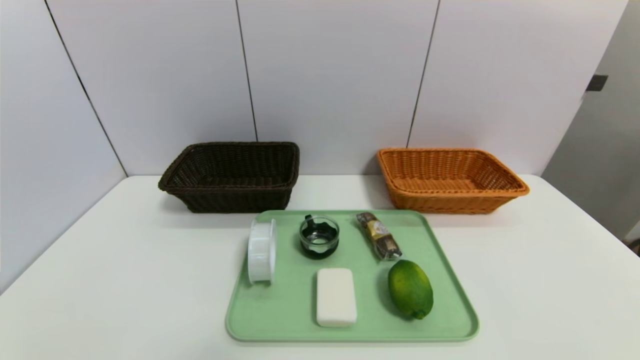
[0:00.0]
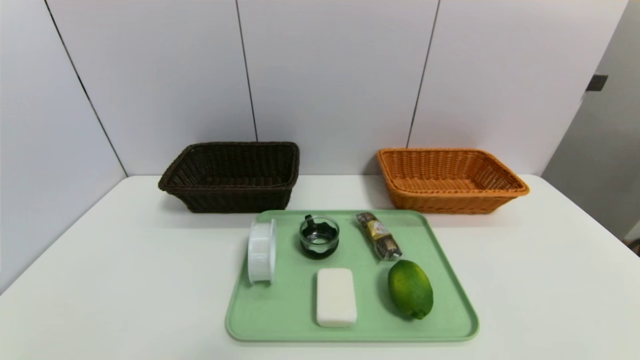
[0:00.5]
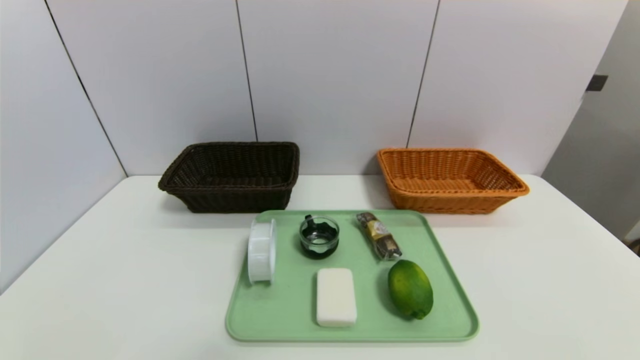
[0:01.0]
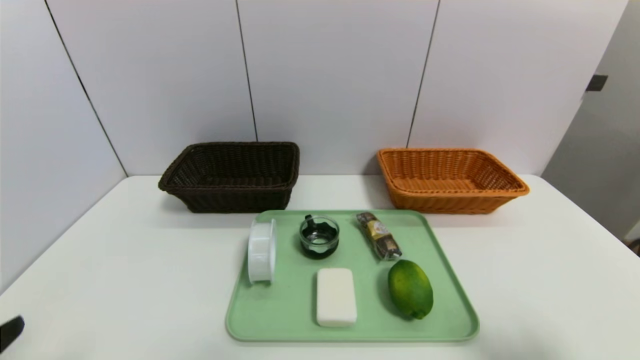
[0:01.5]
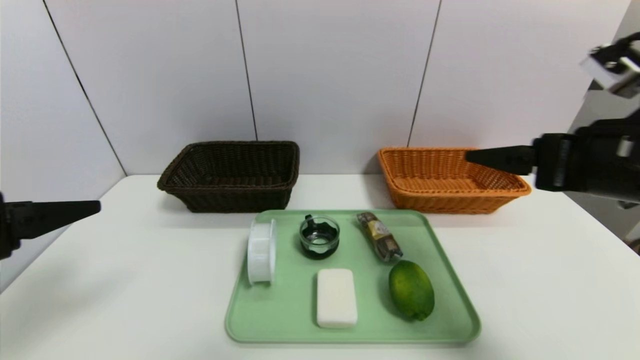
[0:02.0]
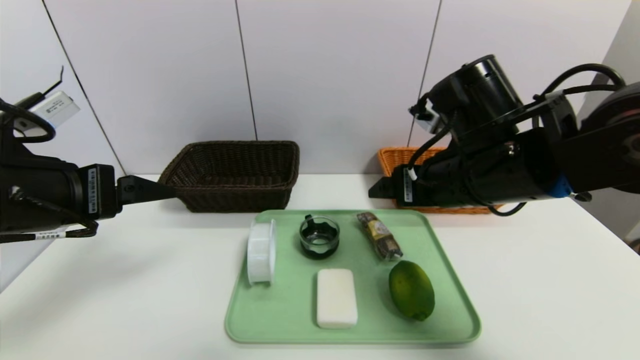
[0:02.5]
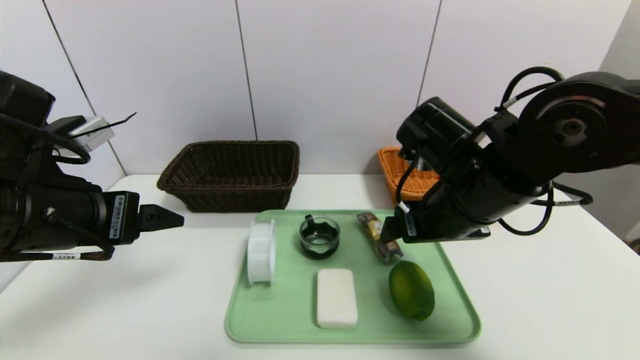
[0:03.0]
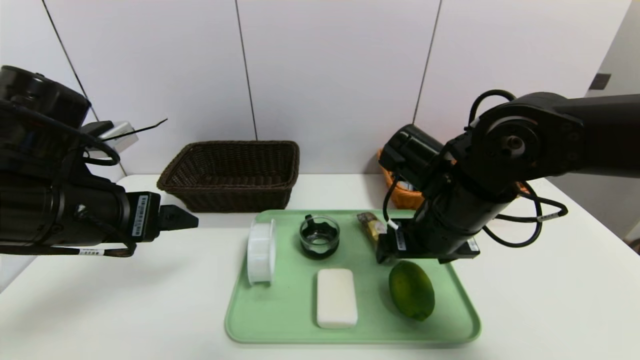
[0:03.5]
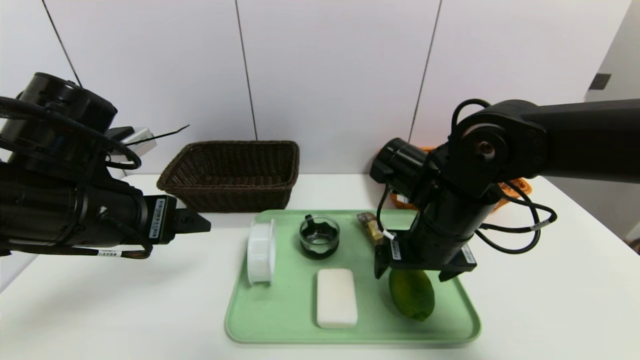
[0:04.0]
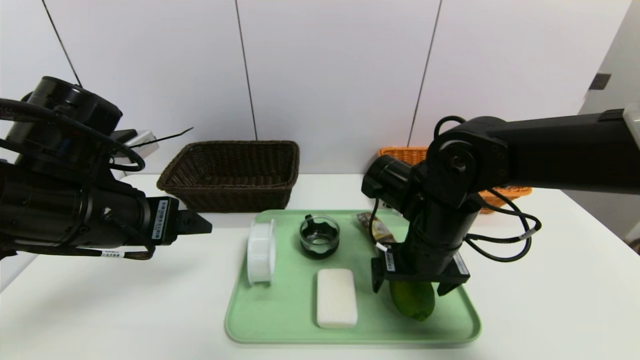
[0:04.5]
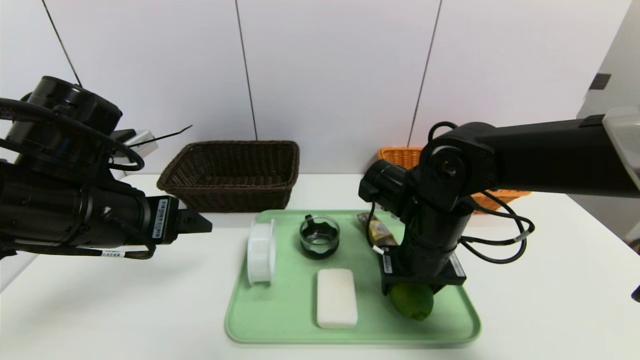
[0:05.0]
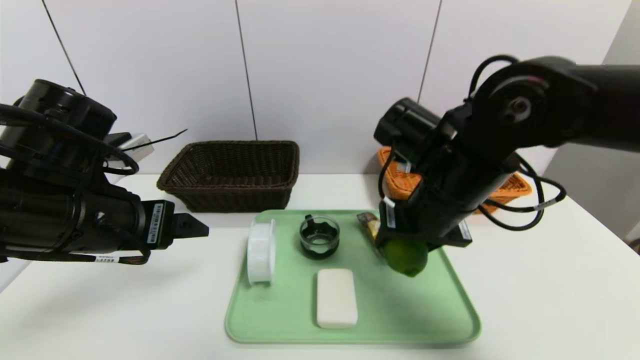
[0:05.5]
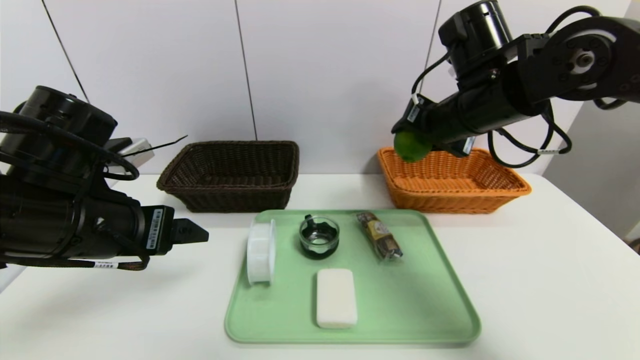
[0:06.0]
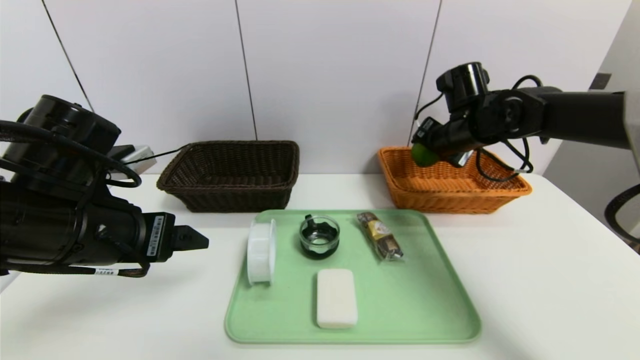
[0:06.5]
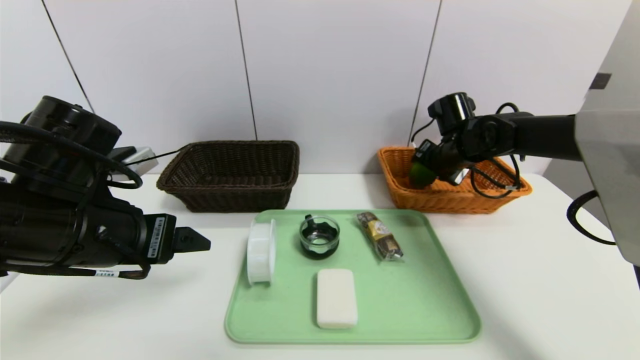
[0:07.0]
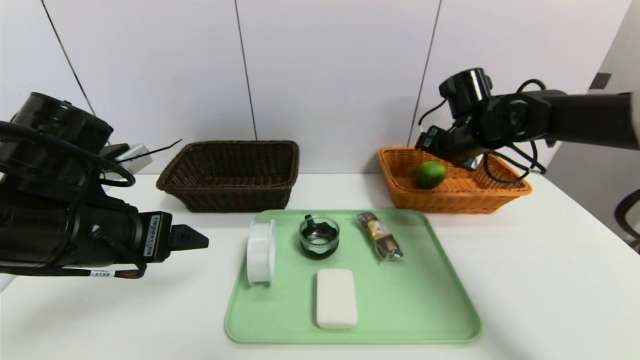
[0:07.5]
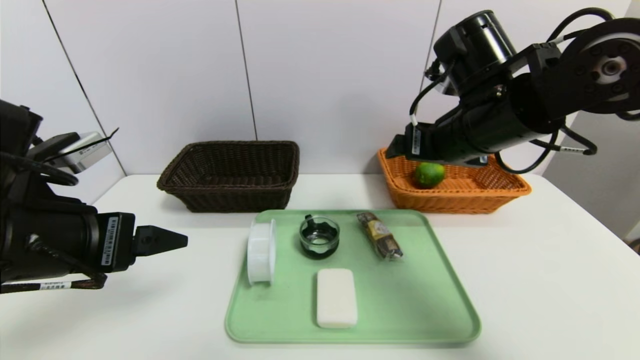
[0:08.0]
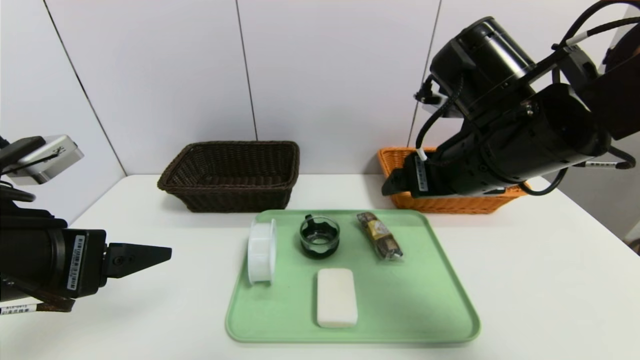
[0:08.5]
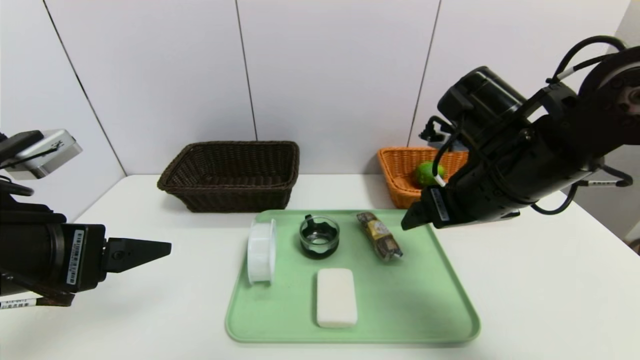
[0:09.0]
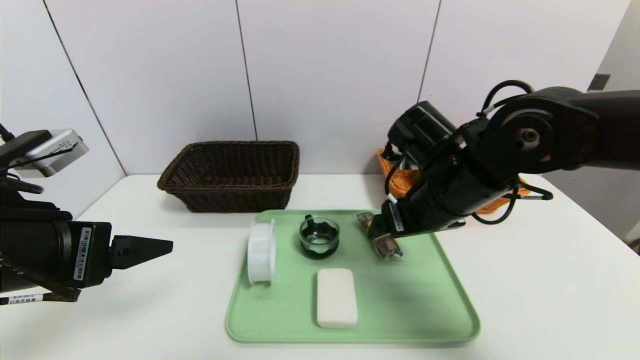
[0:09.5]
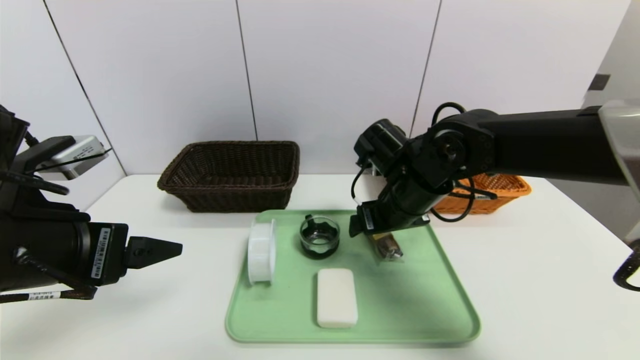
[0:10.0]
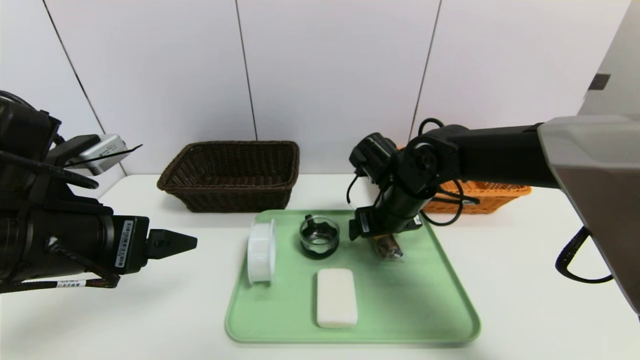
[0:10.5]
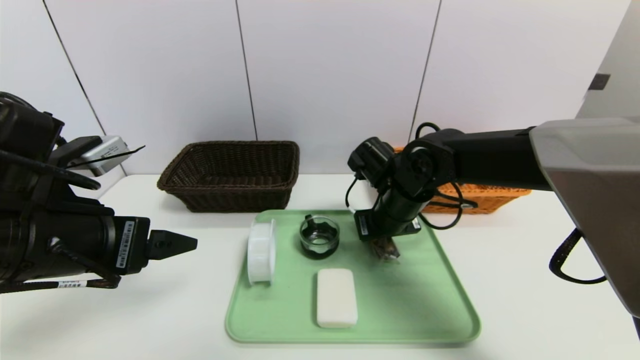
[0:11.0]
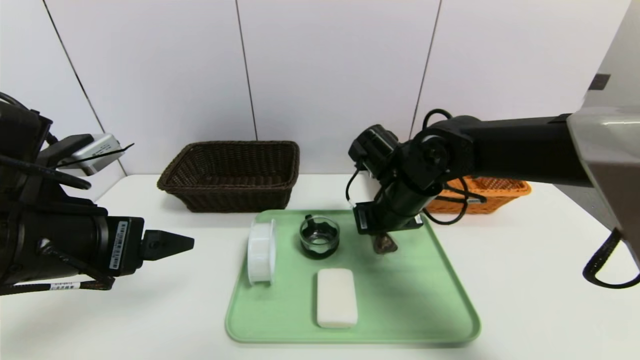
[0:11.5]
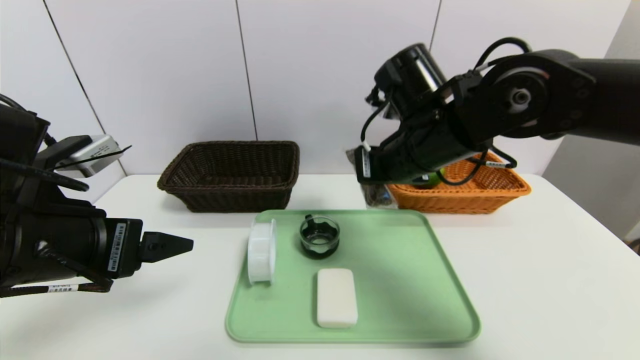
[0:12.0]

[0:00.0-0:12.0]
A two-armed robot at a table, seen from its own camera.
Task of the whole recording: place the food in the right basket with the right gripper, and place the non food items in the left basket with the left gripper.
Step, 0:00.0 to 0:07.0: Grasp the lime and put it in the right basket.
0:00.0 to 0:02.0: The left gripper travels upward and forward by approximately 25 cm; the right gripper goes roughly 30 cm forward, upward and to the left.
0:02.0 to 0:04.0: The left gripper moves forward and to the right, about 10 cm. The right gripper travels to the left, downward and forward by some 15 cm.
0:04.0 to 0:06.0: The right gripper is displaced upward and forward by some 15 cm, and closes up.
0:06.0 to 0:08.0: The right gripper moves approximately 10 cm forward and comes back, and opens up.
0:08.0 to 0:10.0: The right gripper travels downward and to the left by roughly 10 cm.
0:10.0 to 0:12.0: The right gripper heads upward, covering roughly 10 cm, and closes.

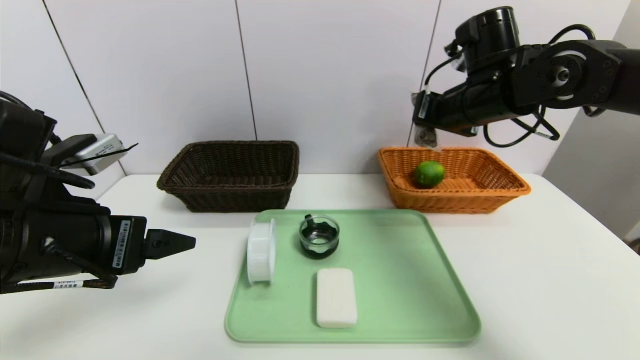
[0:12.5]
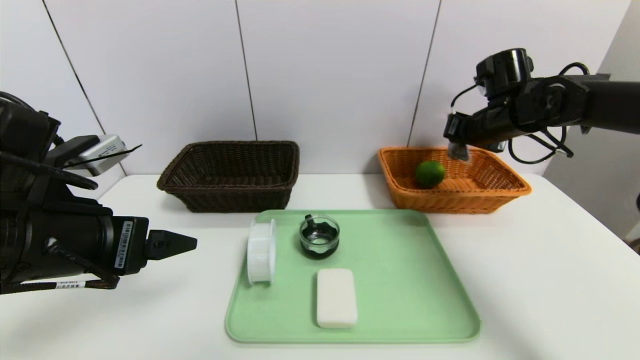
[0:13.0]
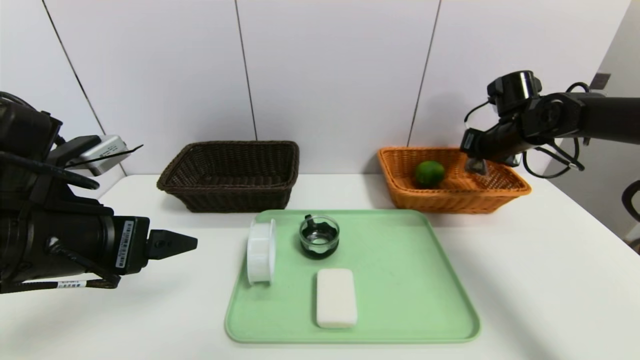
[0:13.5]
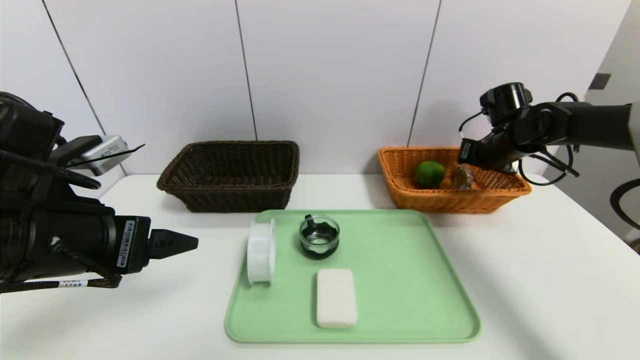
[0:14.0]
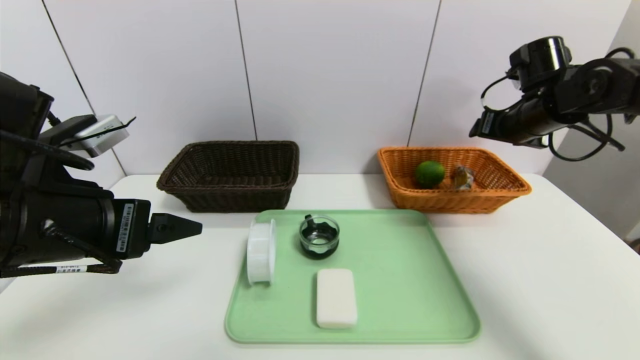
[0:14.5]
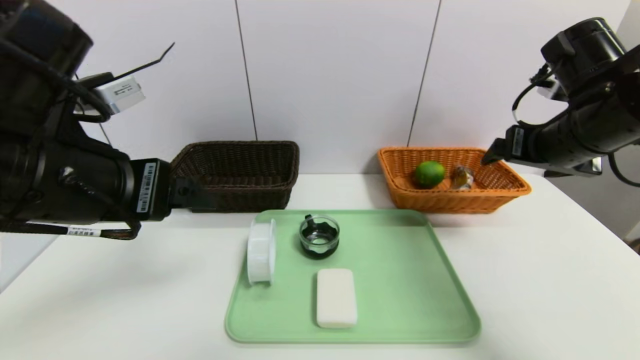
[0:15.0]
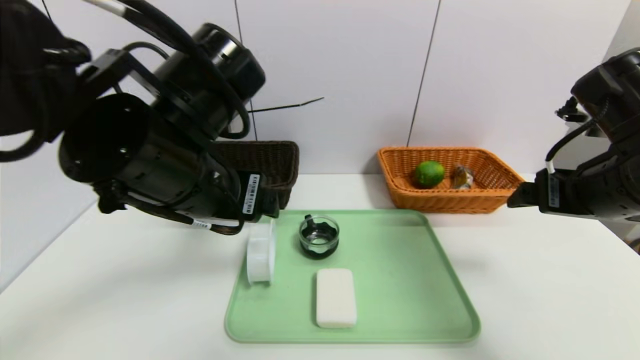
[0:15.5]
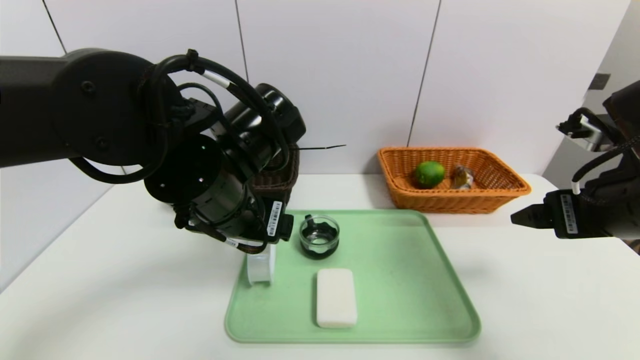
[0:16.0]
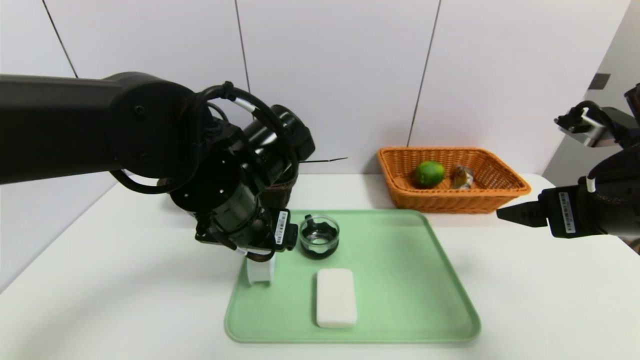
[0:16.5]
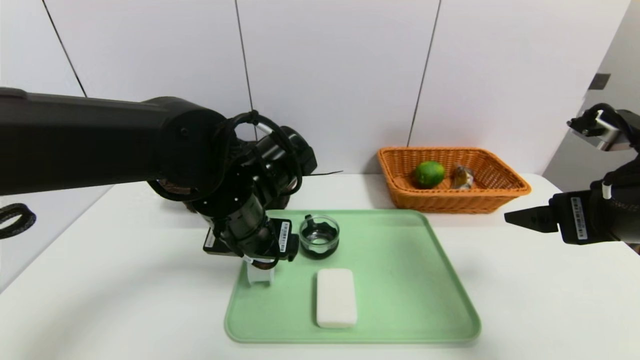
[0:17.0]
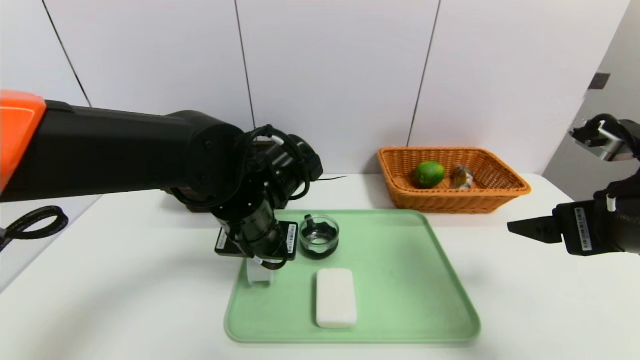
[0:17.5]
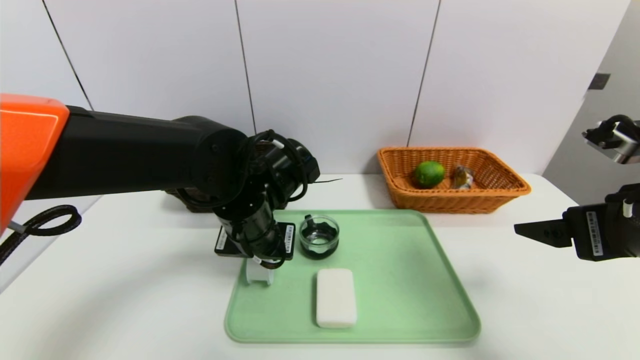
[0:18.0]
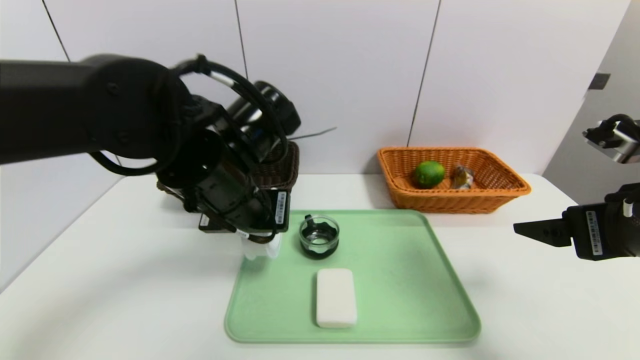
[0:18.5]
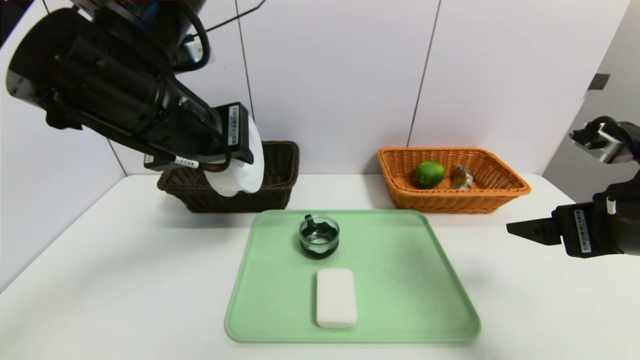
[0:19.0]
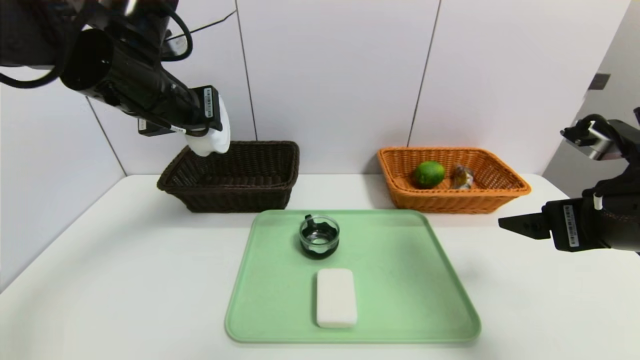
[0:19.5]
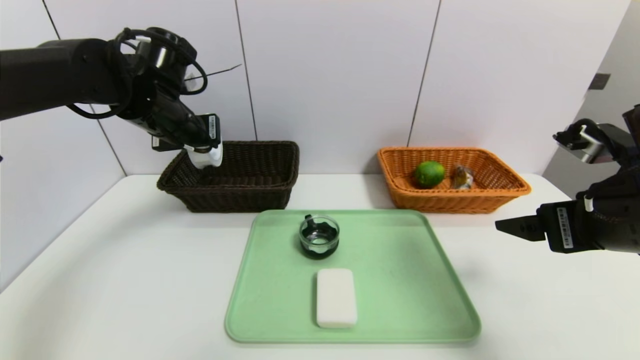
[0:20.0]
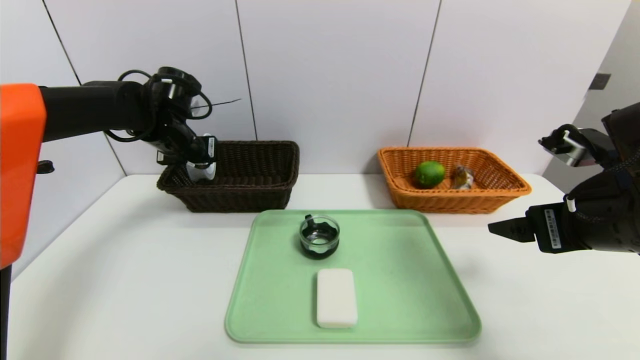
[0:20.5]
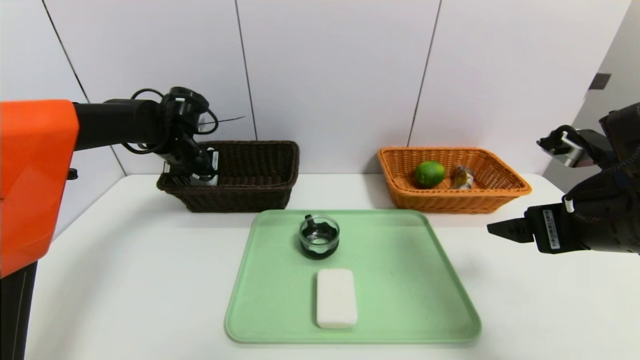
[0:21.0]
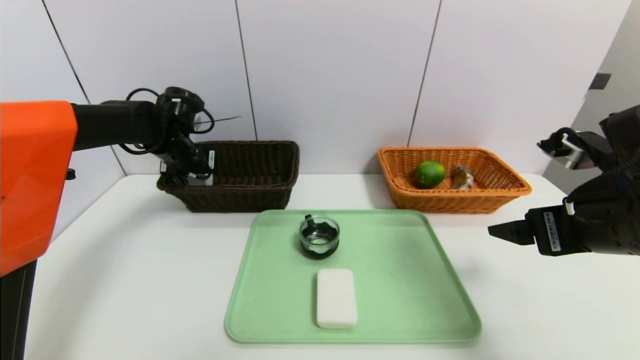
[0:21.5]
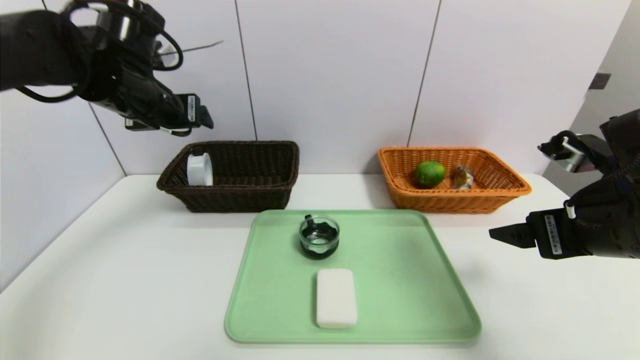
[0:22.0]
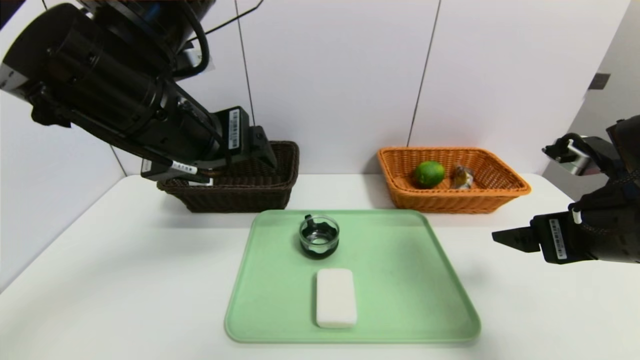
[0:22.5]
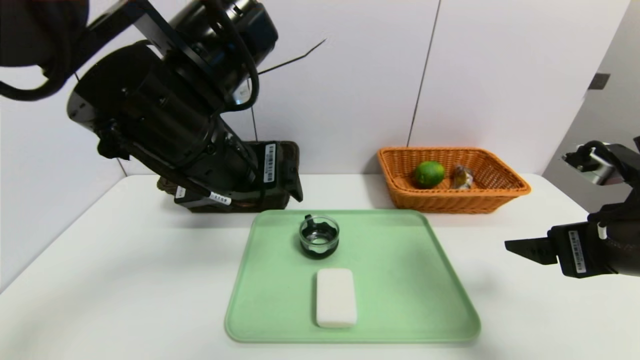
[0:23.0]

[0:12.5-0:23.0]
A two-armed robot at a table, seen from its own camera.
Task of the whole recording: place the food in the right basket with the right gripper, and place the non food items in the left basket with the left gripper.
Step, 0:14.5 to 0:21.5: Grasp the tape and put it in the left basket.
0:12.5 to 0:14.5: The right gripper travels to the right by approximately 10 cm, and opens up.
0:14.5 to 0:16.5: The right gripper heads backward, covering approximately 20 cm; the left gripper shifts roughly 15 cm to the right and forward.
0:16.5 to 0:19.0: The left gripper goes approximately 10 cm upward and to the left, and closes its fingers.
0:19.0 to 0:21.0: The left gripper travels forward, downward and to the left by about 30 cm.
0:21.0 to 0:23.0: The left gripper goes about 30 cm backward, to the right and upward, and opens up.
